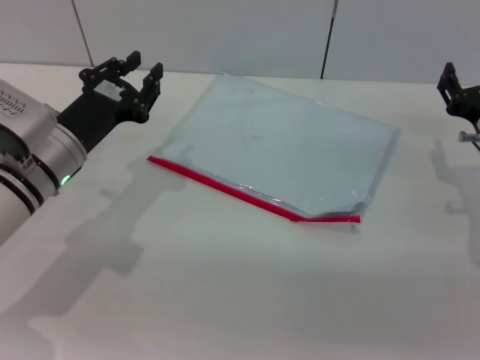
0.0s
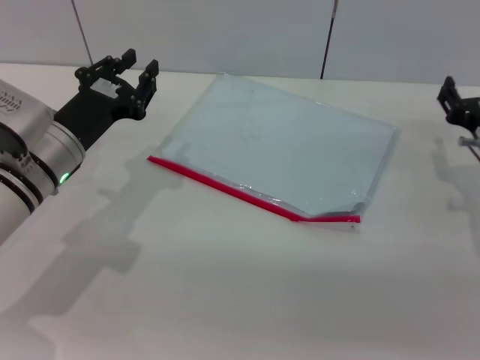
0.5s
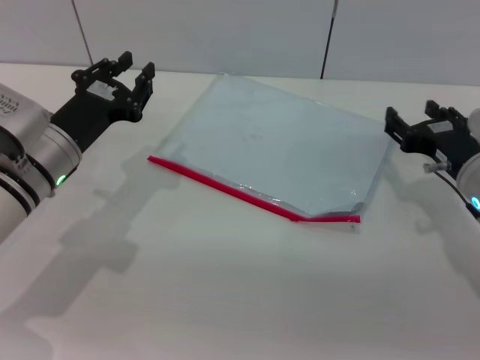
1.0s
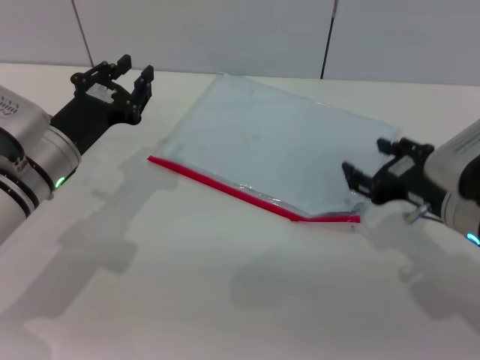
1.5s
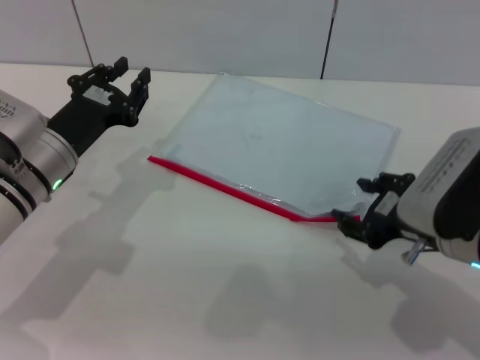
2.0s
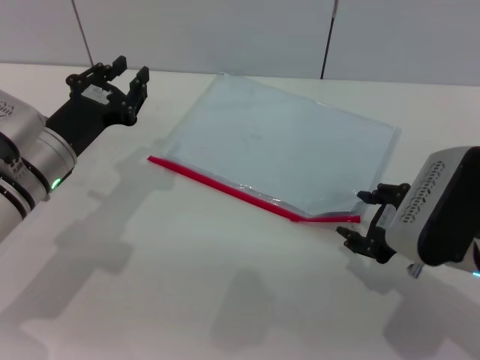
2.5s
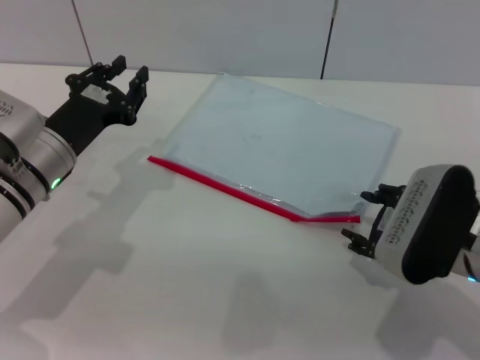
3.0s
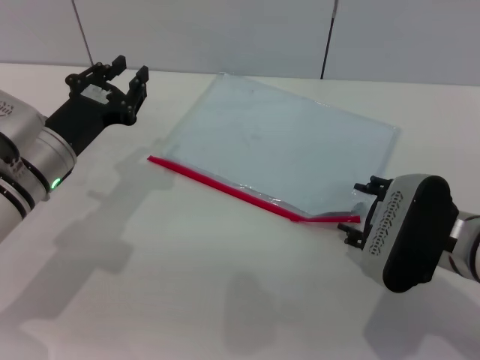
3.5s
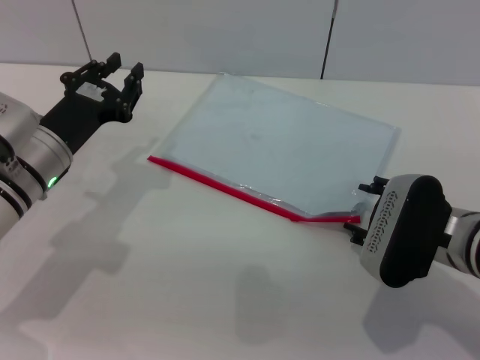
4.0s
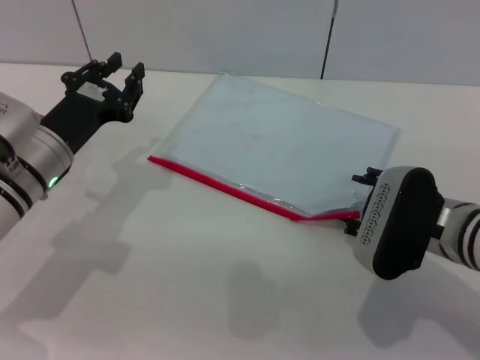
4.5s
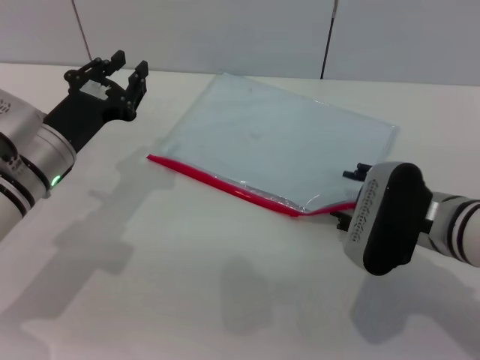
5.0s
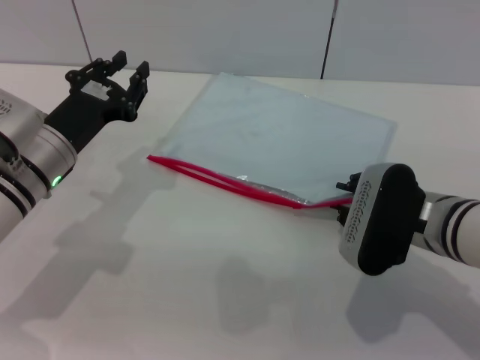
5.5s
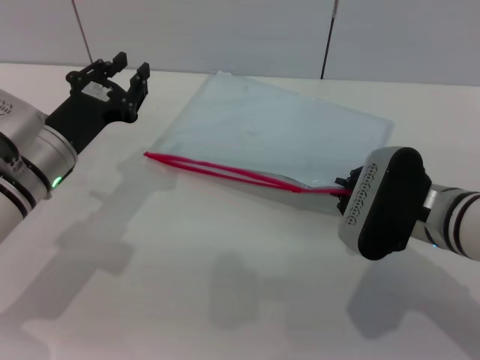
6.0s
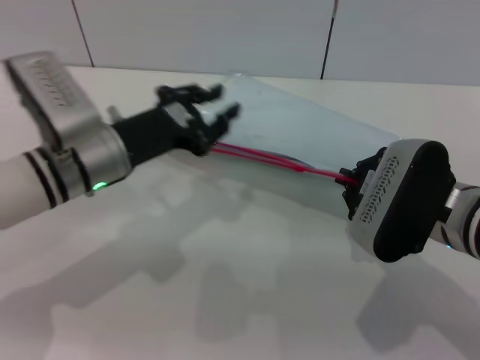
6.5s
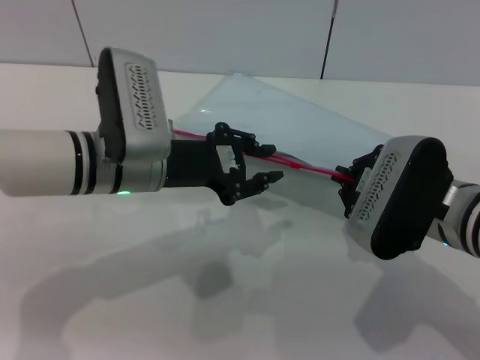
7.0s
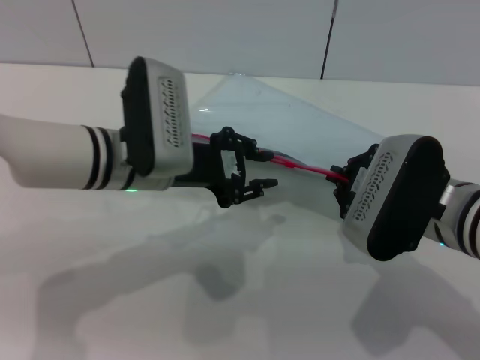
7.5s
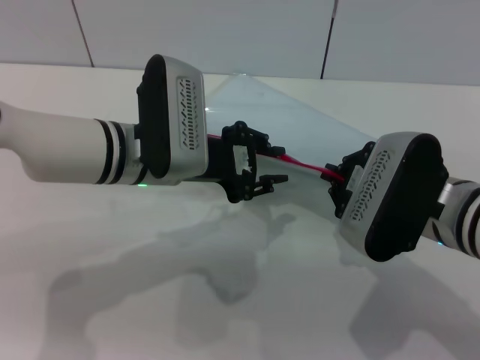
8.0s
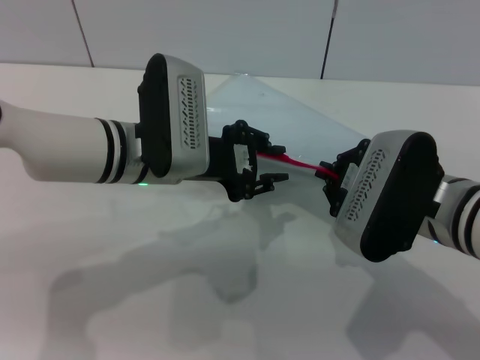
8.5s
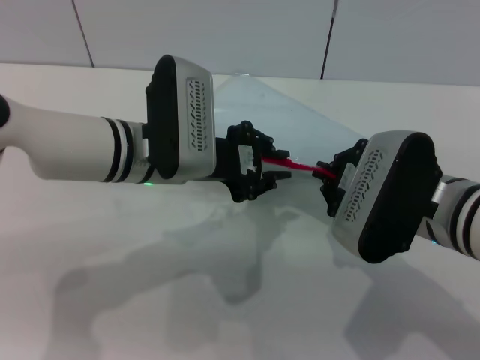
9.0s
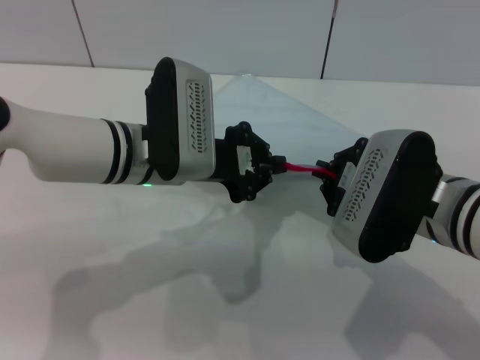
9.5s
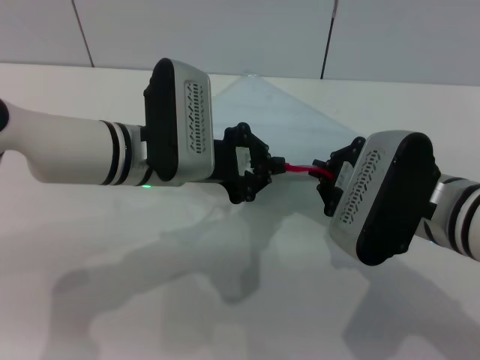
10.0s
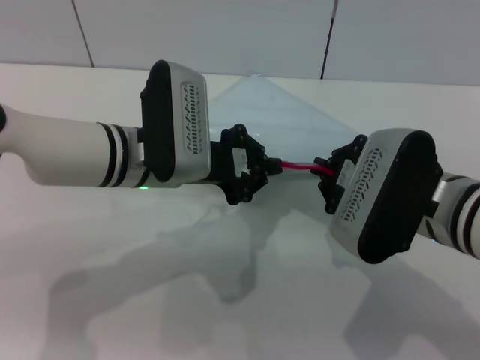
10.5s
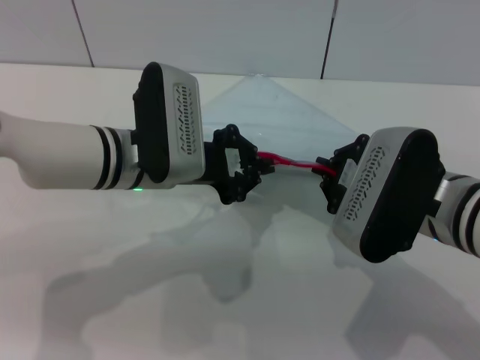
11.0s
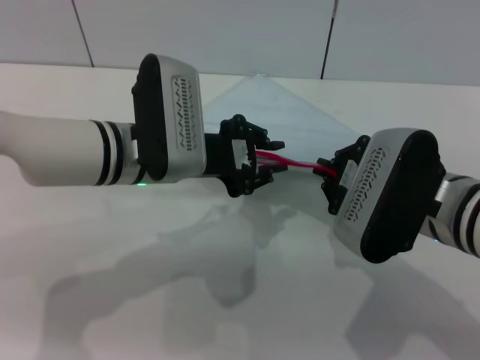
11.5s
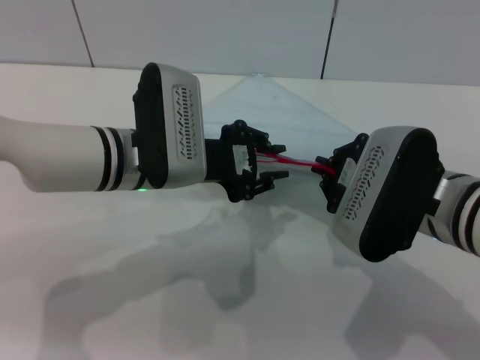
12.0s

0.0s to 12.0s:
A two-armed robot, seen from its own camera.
Step, 0.0s to 6.5s: Pick up the transparent plastic bag with the right gripper.
0.0s to 2.0s: The right gripper shifts some 10 cm backward and to the left.
4.0s to 6.0s: The right gripper closes up.
6.0s to 8.0s: The left gripper heads to the right and upward, covering some 10 cm.
8.0s to 10.0s: The left gripper closes its fingers.
10.0s to 12.0s: The left gripper opens up.

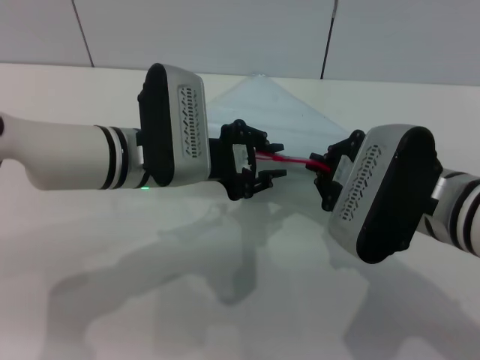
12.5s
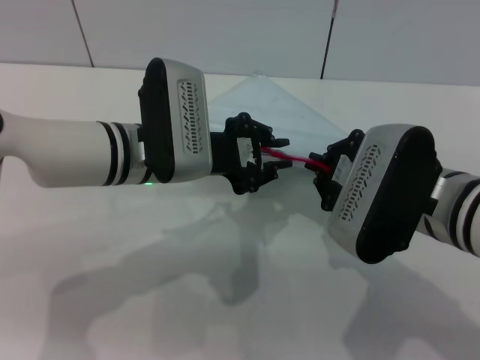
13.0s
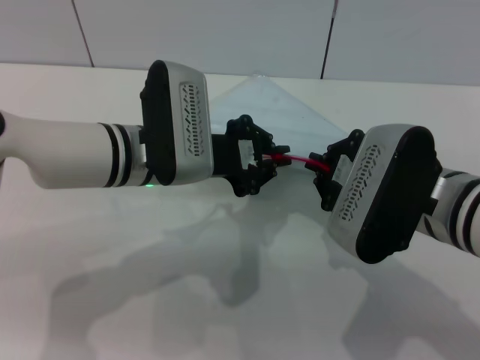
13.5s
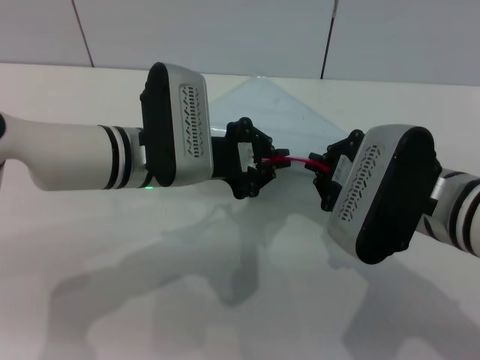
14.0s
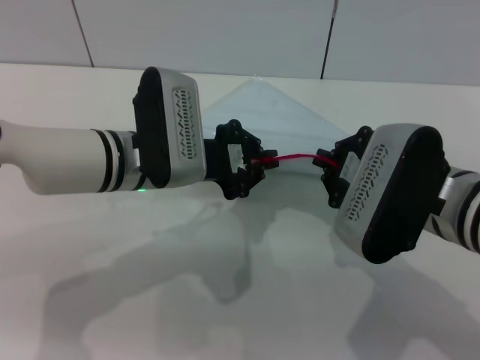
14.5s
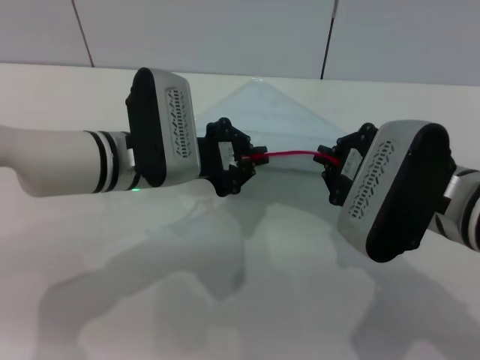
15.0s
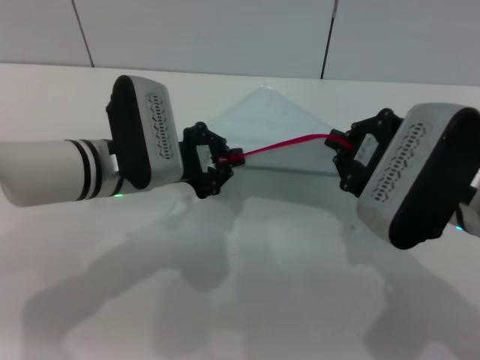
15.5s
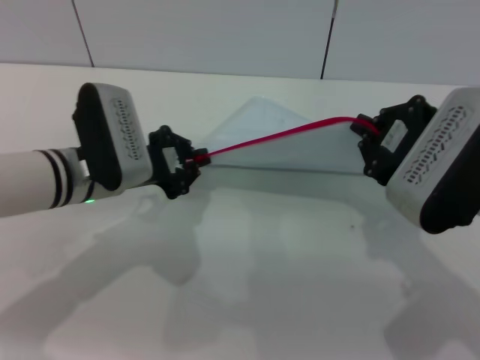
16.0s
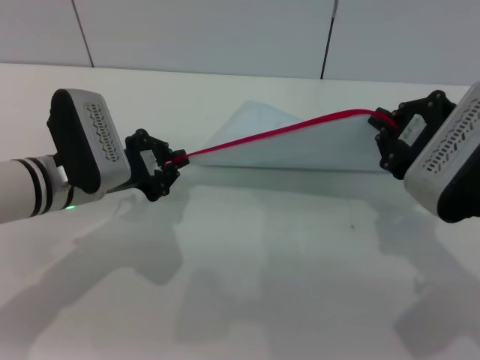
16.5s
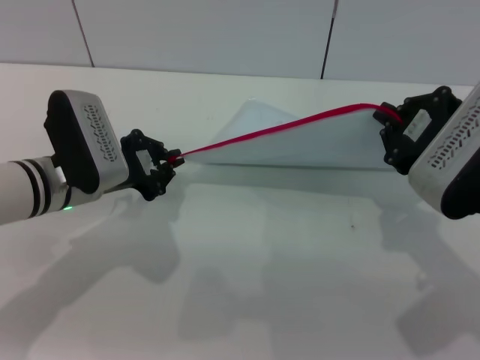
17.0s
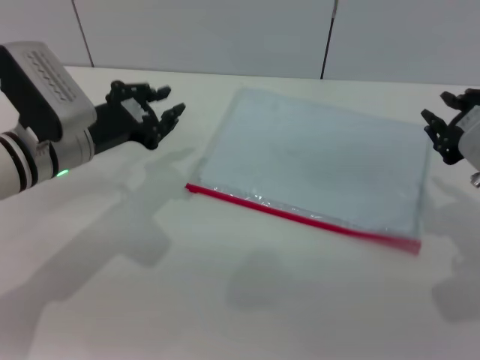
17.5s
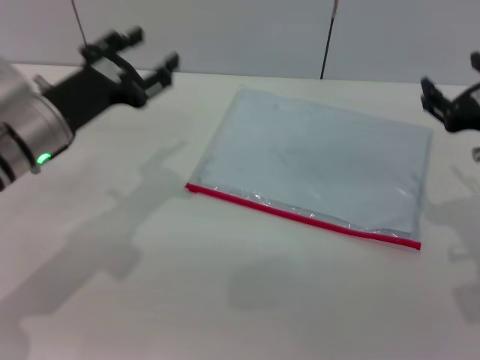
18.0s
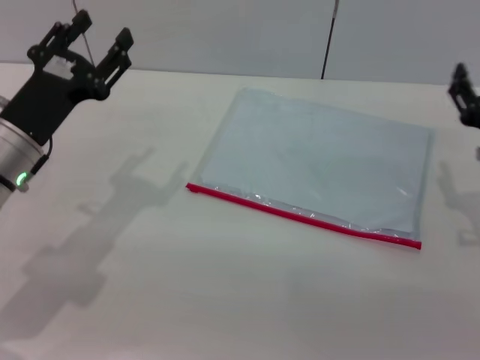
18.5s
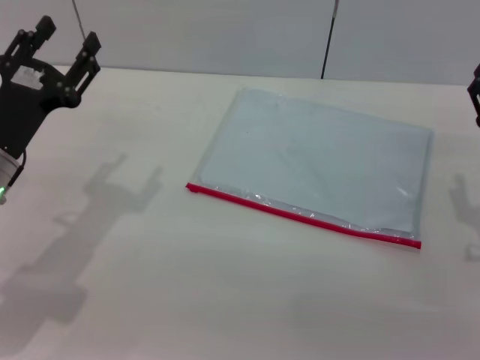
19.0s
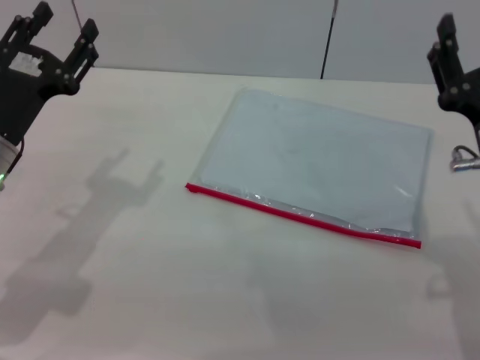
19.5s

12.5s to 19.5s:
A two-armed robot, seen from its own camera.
Step, 12.5s to 17.0s: Pulling up the zipper on the transparent plastic bag with the left gripper to close it.
12.5s to 14.5s: The left gripper closes its fingers.
14.5s to 16.0s: The left gripper shifts some 5 cm to the left.
16.0s to 17.5s: The right gripper goes some 5 cm to the right.
17.5s to 19.5s: The left gripper moves about 5 cm, and opens its fingers; the right gripper is displaced backward by about 5 cm, and opens.

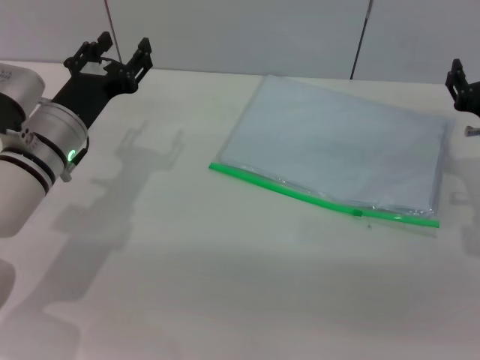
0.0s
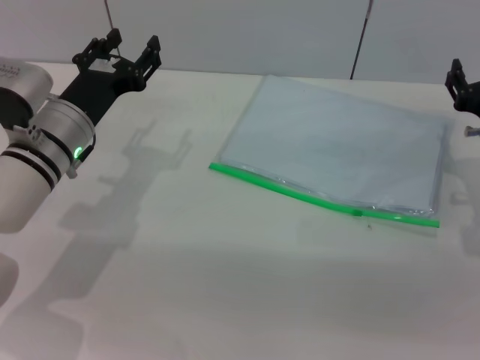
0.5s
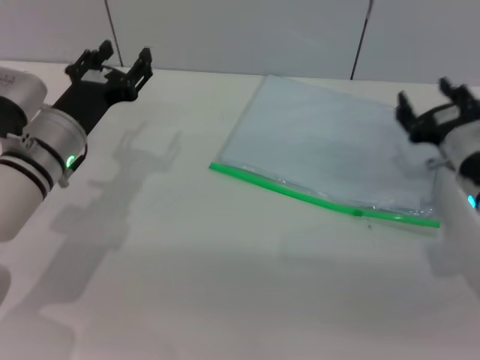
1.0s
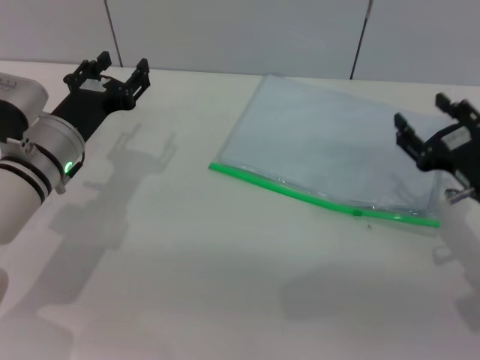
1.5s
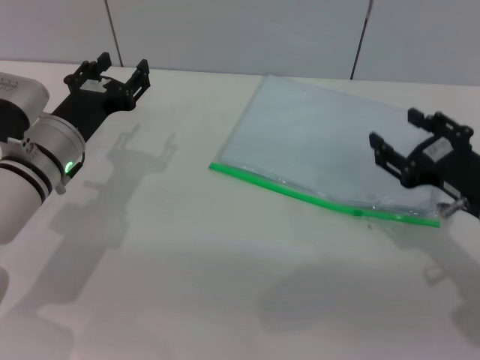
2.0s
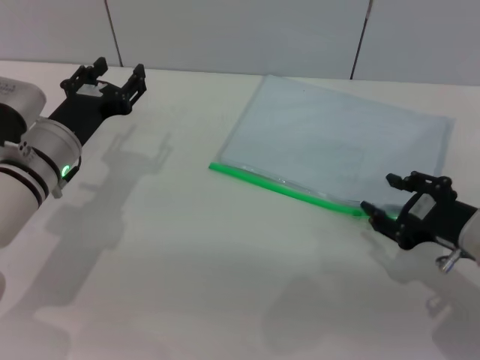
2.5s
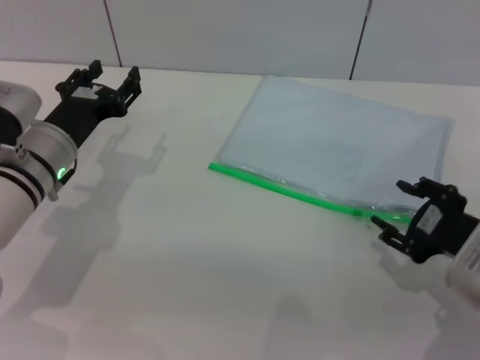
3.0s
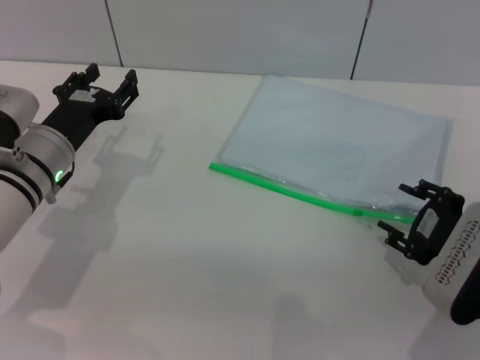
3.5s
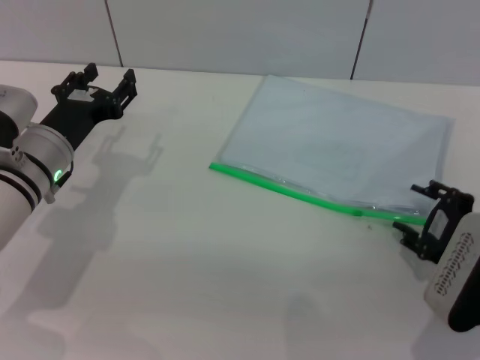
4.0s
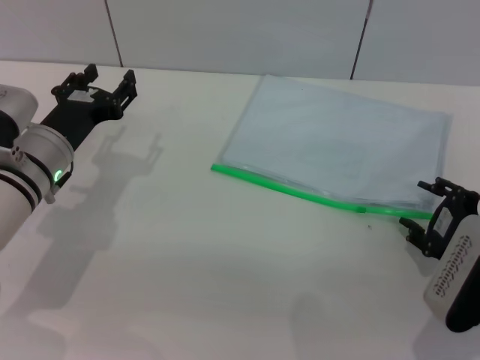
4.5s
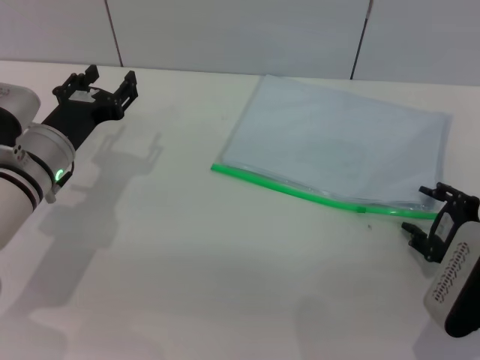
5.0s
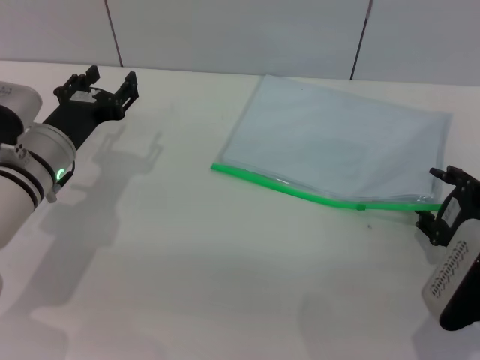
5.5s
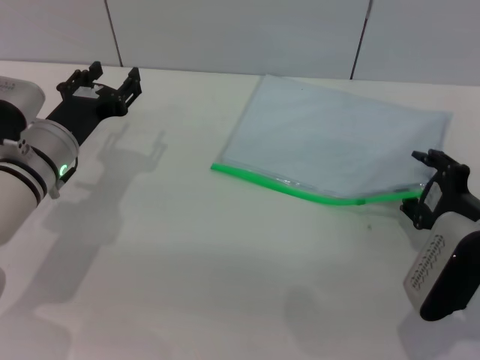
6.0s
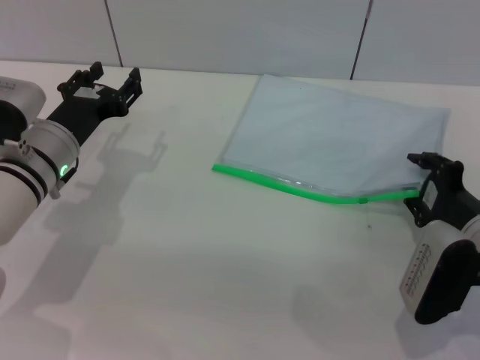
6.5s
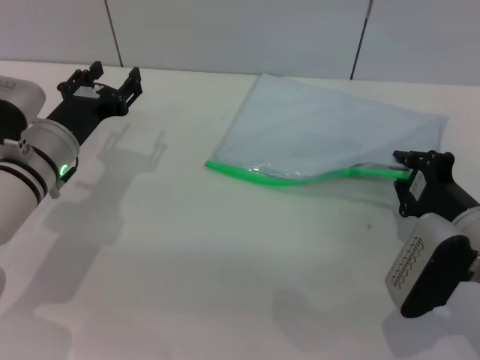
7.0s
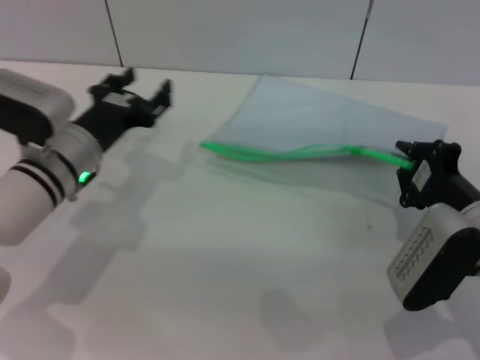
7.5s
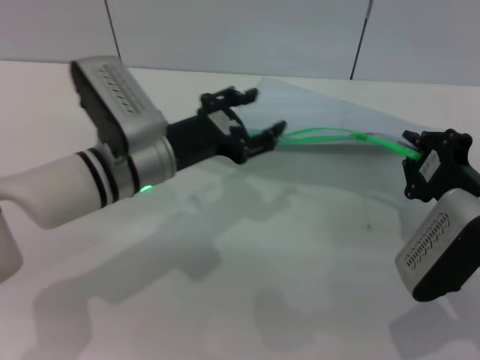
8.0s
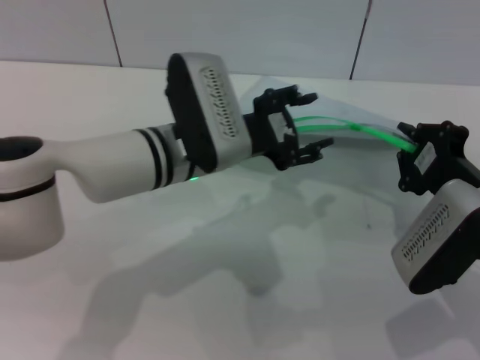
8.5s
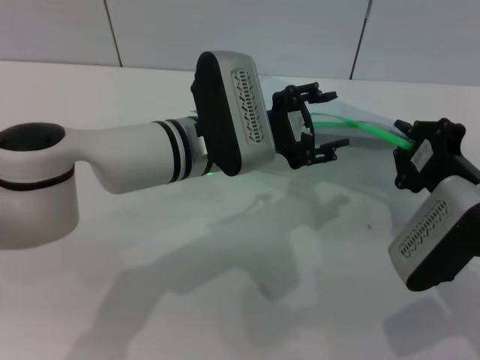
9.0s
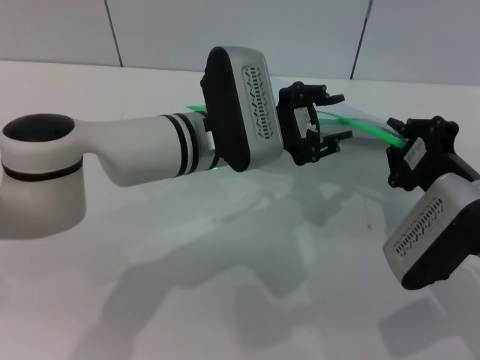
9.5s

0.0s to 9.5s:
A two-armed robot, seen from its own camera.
Step, 0.0s to 7.0s: Pick up the transparent plastic bag with the right gripper.
0.0s to 2.0s: The right gripper is displaced backward by about 10 cm.
4.0s to 5.5s: There are only small adjustments of the grippers.
5.5s to 7.5s: The right gripper closes its fingers.
7.5s to 9.5s: The left gripper shifts roughly 15 cm to the right and upward.
